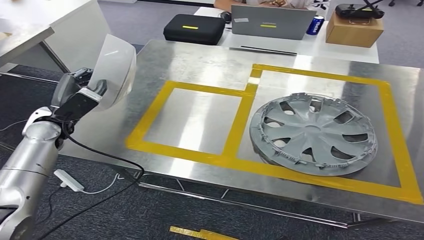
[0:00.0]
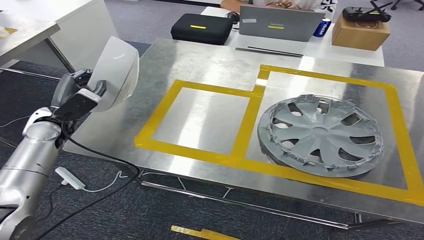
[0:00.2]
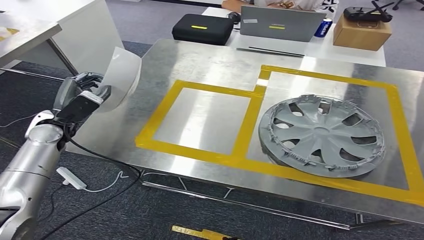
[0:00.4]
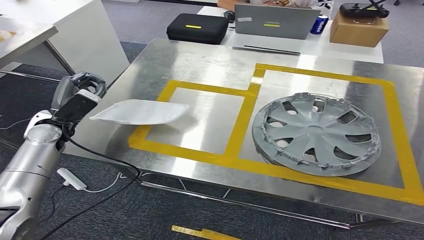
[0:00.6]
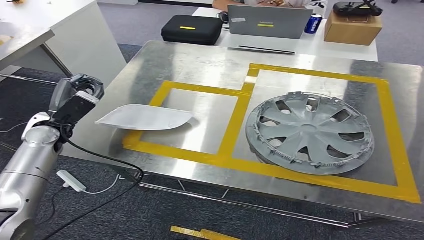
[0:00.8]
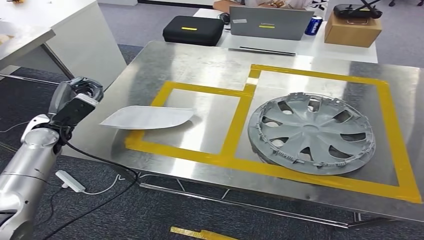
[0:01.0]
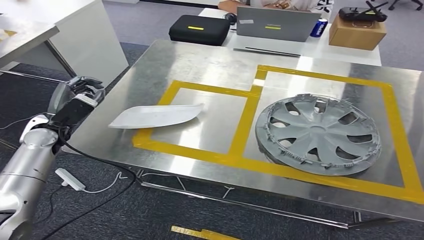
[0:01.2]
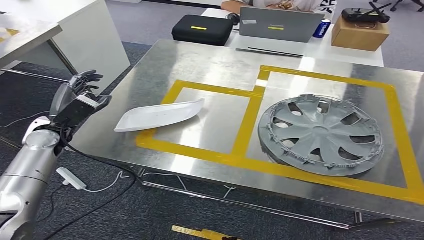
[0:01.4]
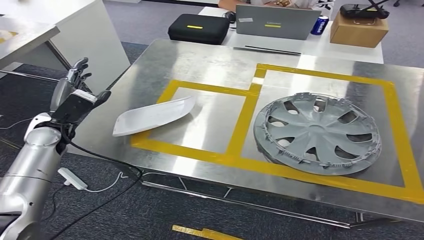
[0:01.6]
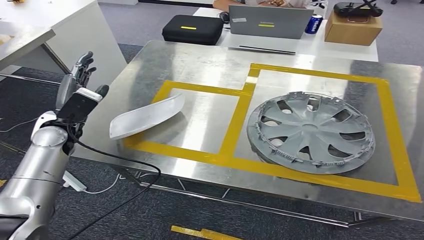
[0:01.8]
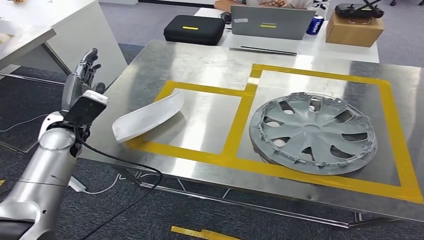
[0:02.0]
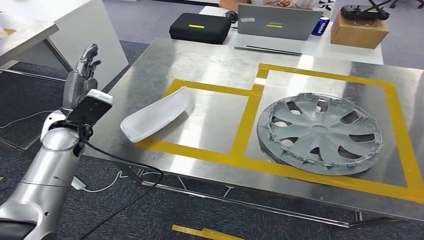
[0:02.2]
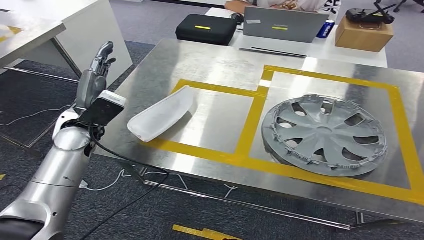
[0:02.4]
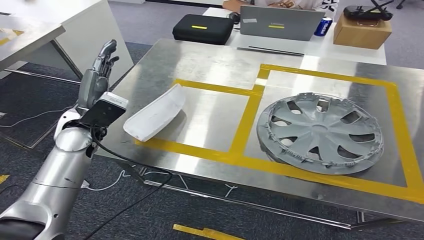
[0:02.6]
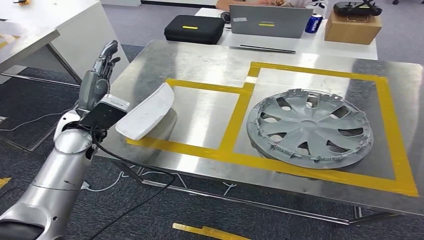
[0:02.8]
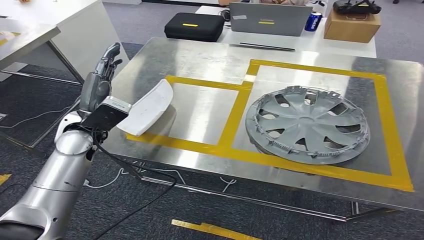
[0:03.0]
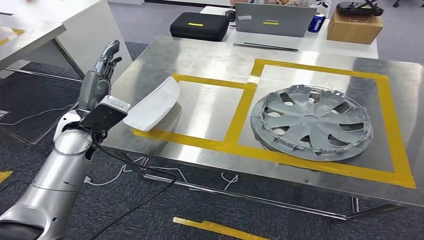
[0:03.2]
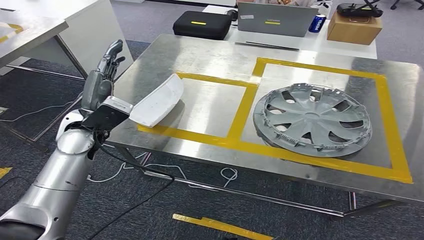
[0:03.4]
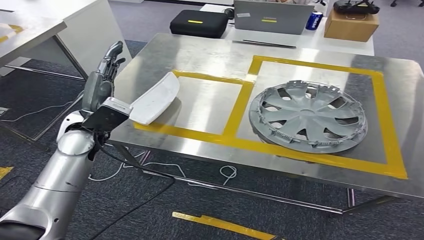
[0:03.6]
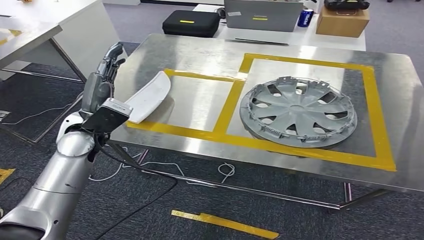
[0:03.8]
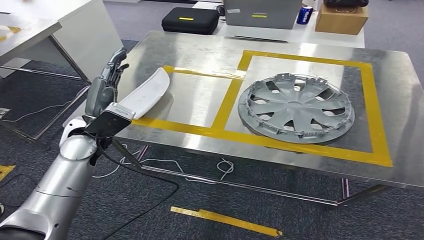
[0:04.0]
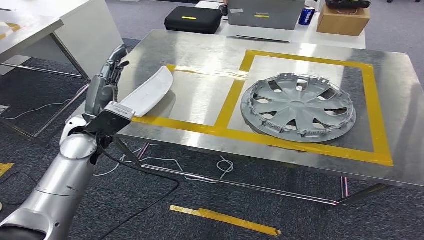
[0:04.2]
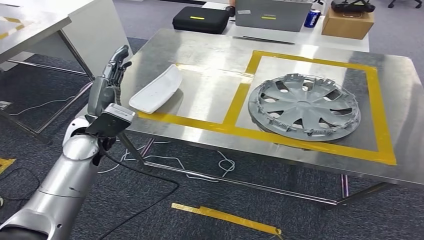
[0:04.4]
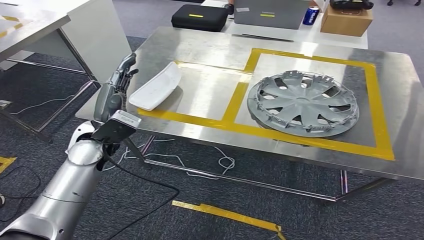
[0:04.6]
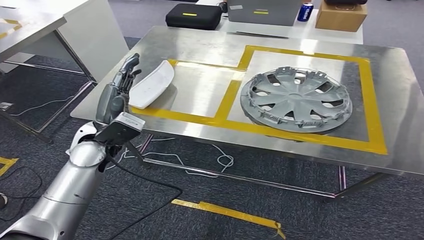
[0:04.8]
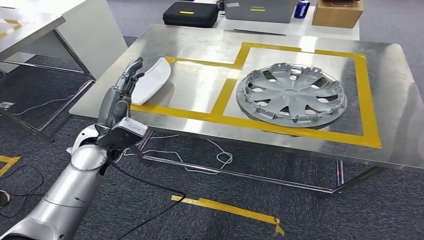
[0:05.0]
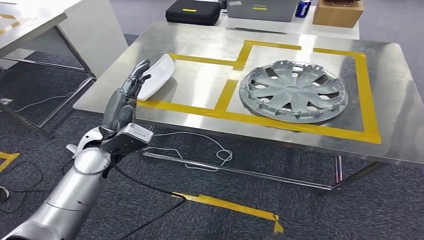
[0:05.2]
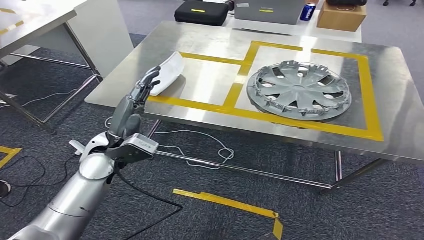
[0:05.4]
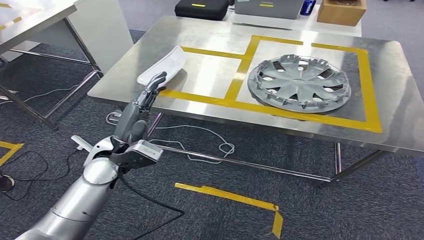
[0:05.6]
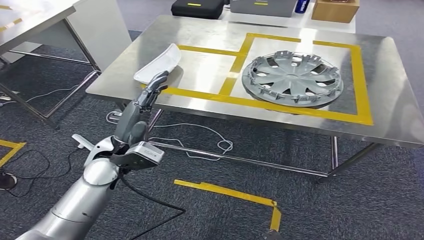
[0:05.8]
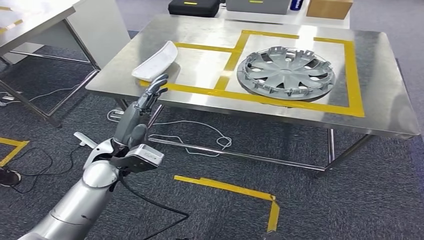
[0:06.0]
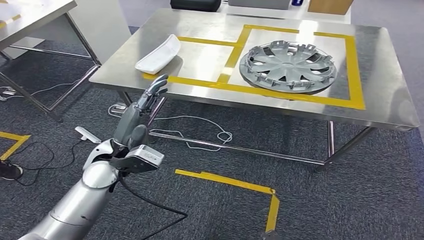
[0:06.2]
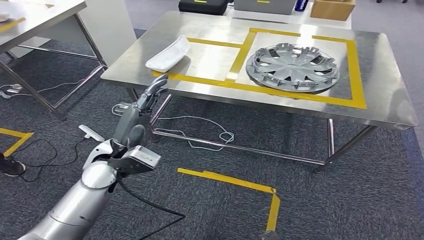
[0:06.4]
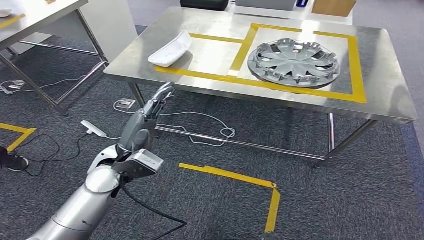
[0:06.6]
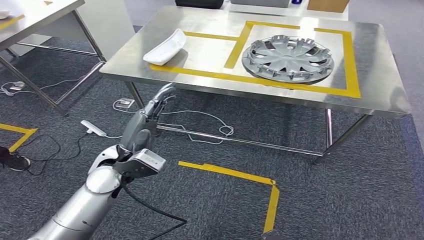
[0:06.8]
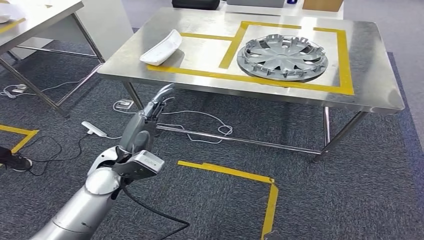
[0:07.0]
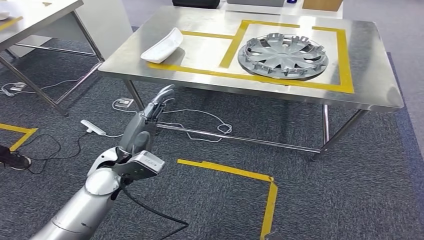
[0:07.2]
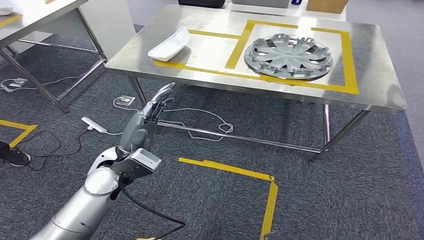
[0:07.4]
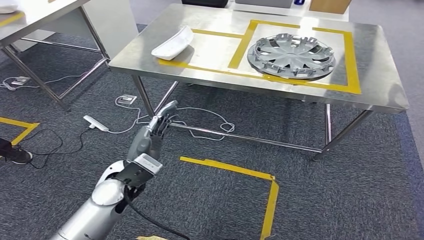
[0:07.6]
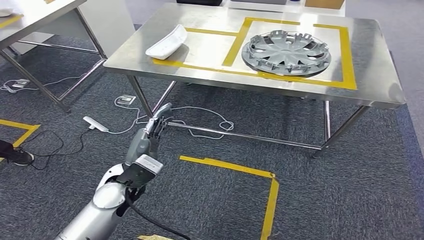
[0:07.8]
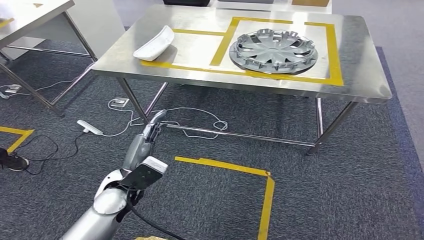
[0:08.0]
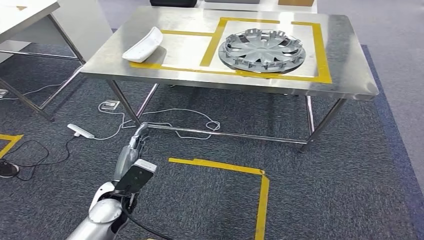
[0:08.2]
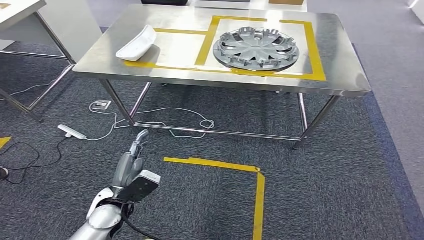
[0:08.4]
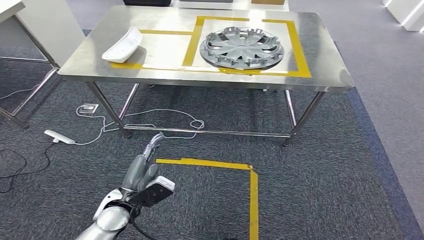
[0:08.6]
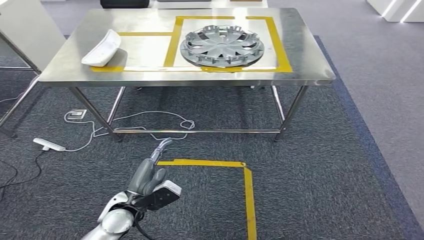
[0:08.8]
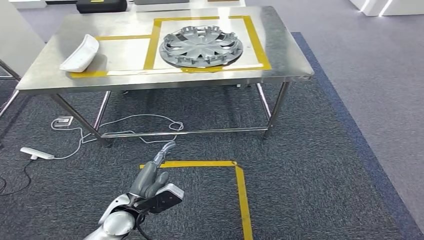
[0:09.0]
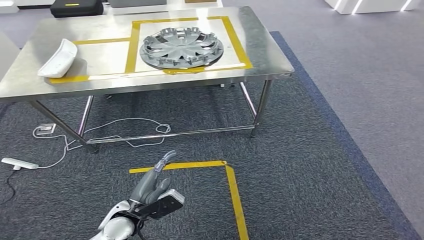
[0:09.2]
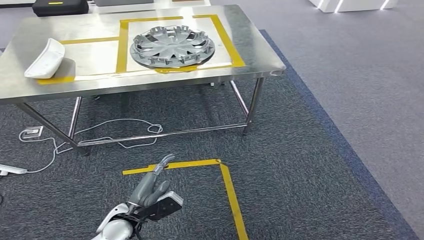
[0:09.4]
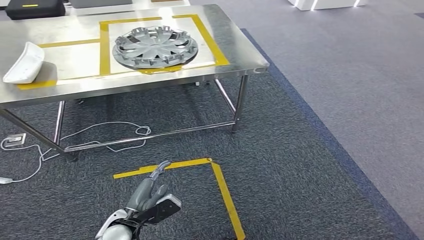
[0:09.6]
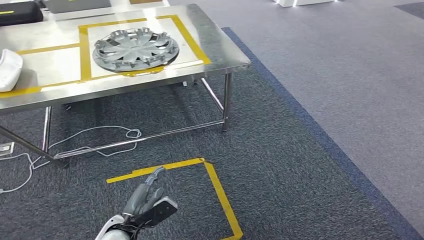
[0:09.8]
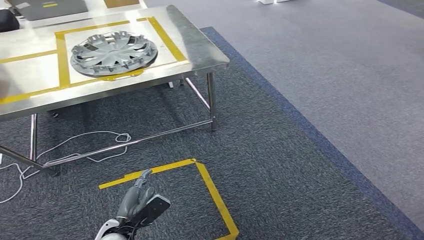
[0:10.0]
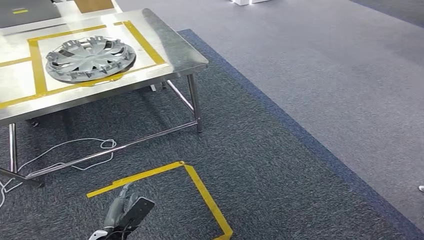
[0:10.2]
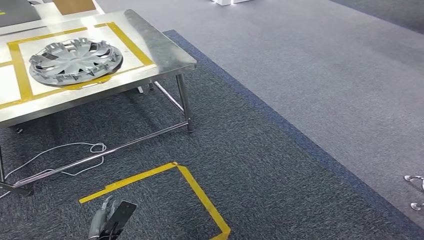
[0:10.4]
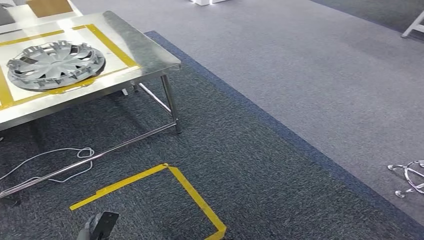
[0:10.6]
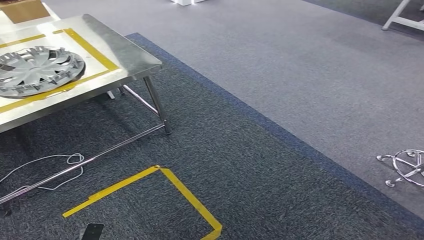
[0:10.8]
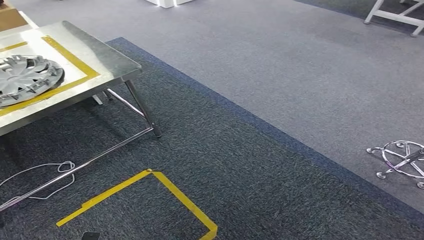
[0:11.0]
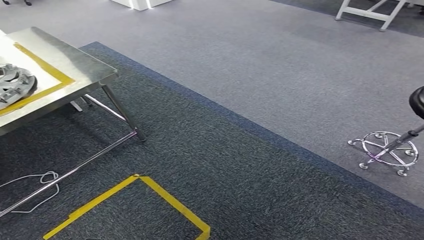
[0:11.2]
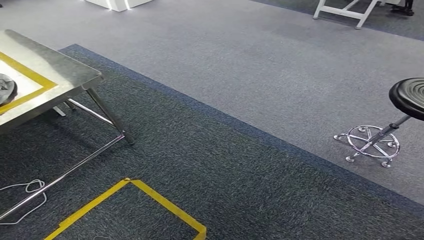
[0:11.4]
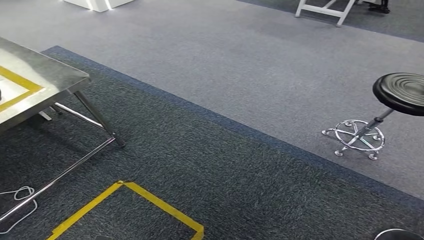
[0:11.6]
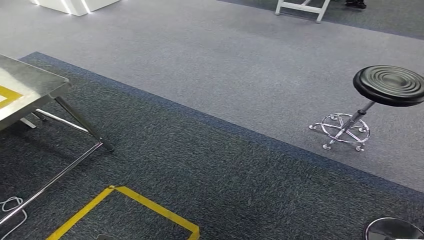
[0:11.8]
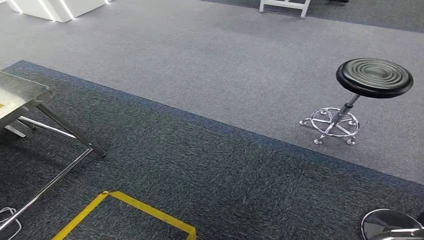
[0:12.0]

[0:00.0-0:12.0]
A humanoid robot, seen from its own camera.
Step, 0:00.0 to 0:04.6: Insert the small parts into the corresponding holes on the workbench.

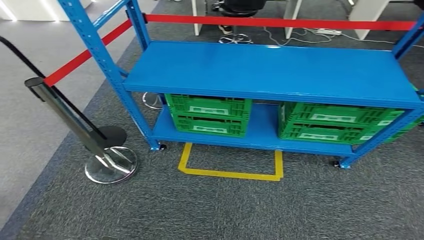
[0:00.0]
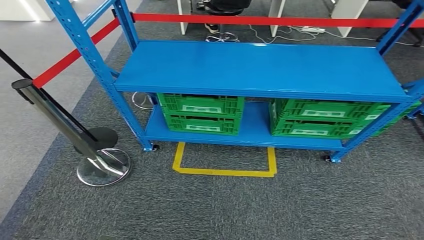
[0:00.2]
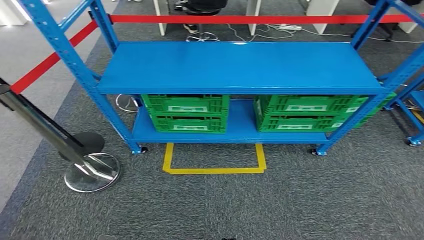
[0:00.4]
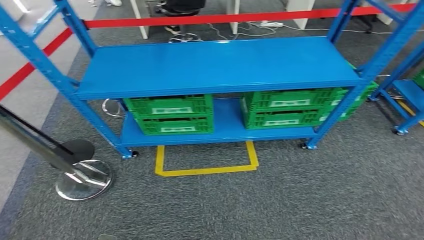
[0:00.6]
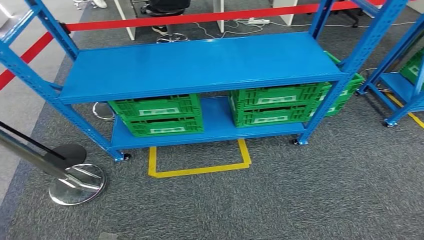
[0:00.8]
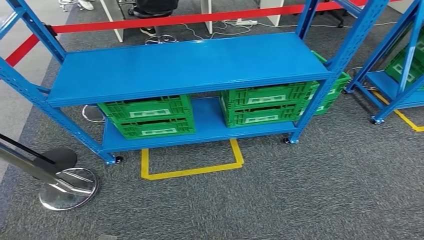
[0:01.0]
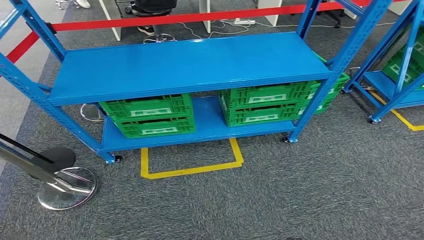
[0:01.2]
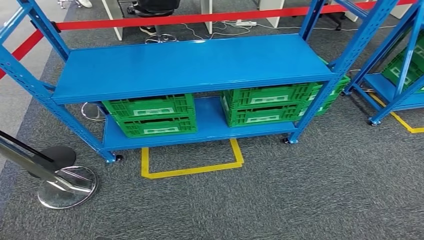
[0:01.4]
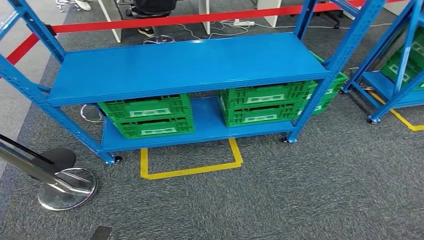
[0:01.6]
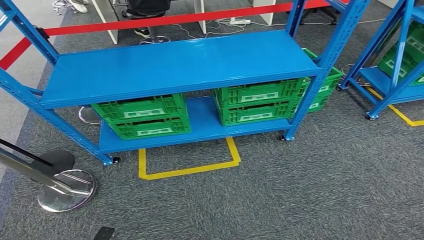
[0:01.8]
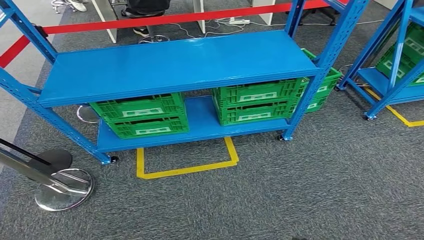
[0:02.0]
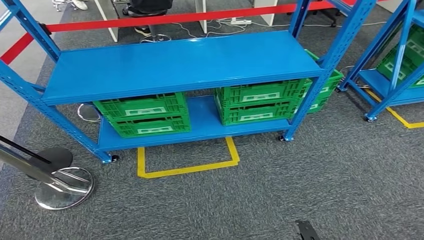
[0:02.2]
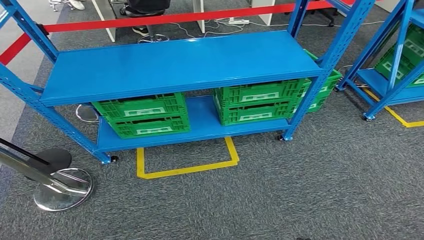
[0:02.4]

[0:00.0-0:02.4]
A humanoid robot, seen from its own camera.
Step, 0:00.0 to 0:02.4: Move to the initial position of the workbench.
0:01.2 to 0:02.4: The right hand goes forward and returns, some 5 cm each way.
